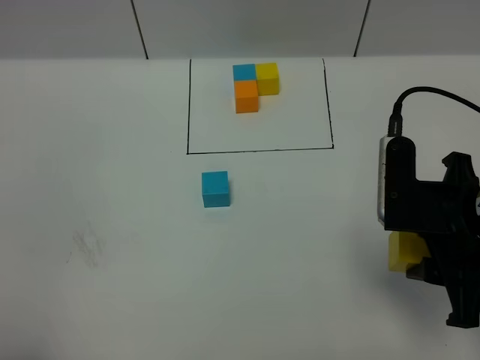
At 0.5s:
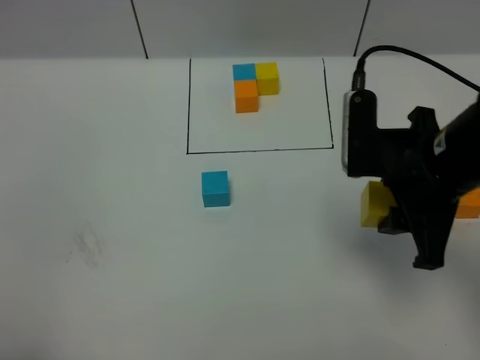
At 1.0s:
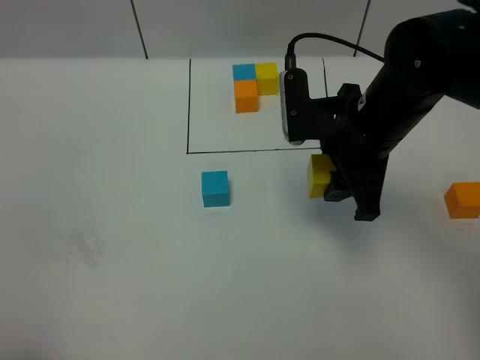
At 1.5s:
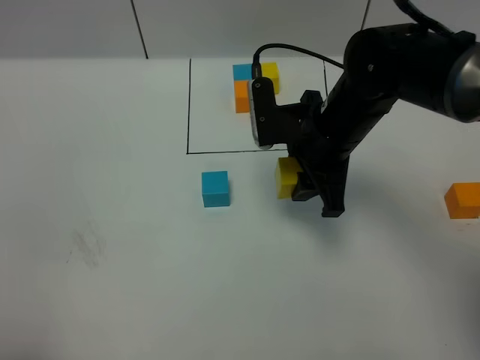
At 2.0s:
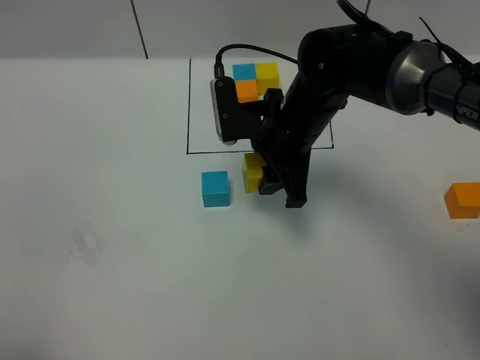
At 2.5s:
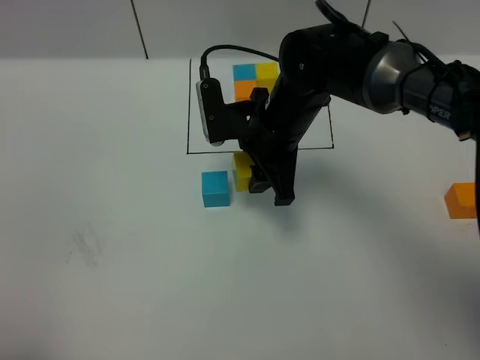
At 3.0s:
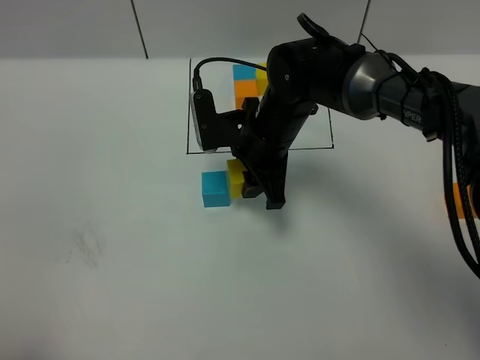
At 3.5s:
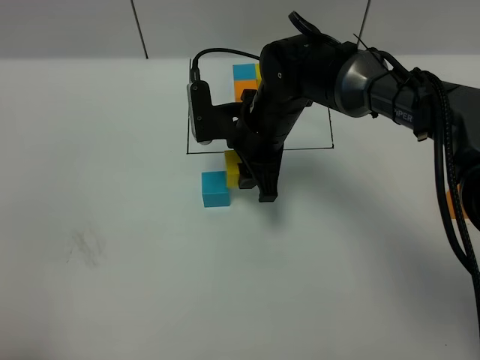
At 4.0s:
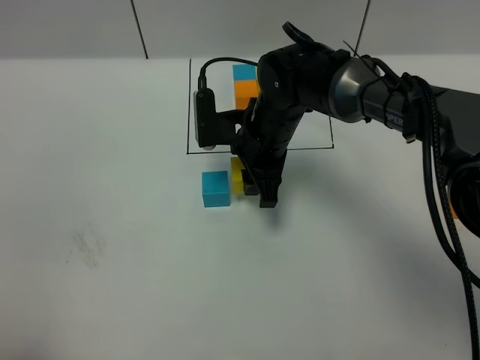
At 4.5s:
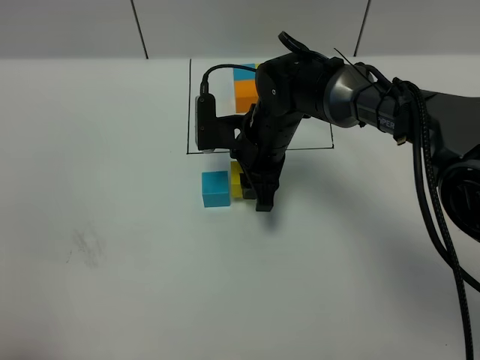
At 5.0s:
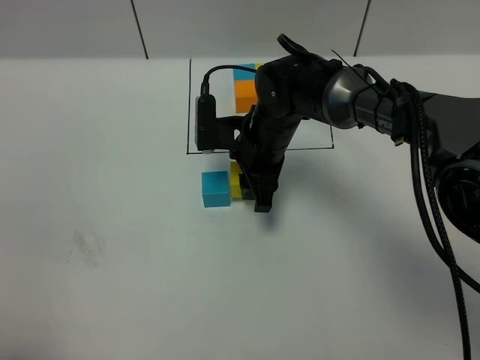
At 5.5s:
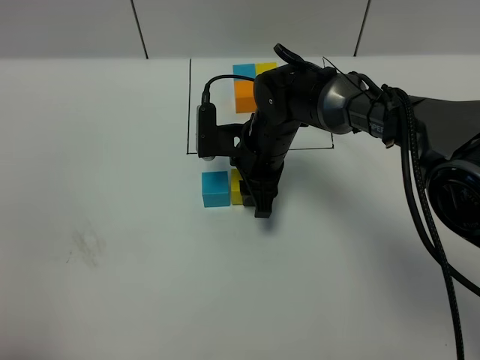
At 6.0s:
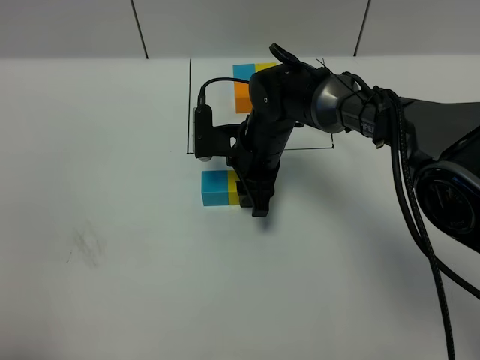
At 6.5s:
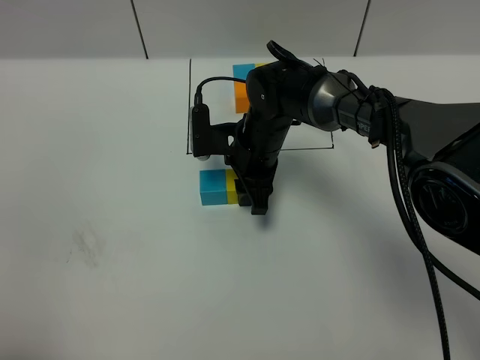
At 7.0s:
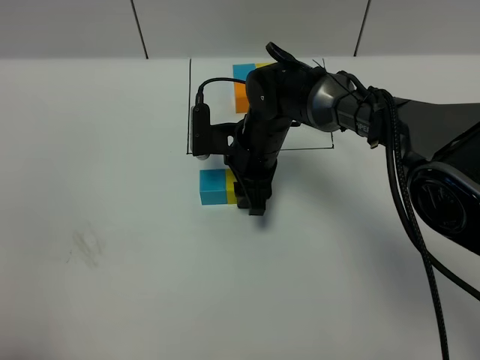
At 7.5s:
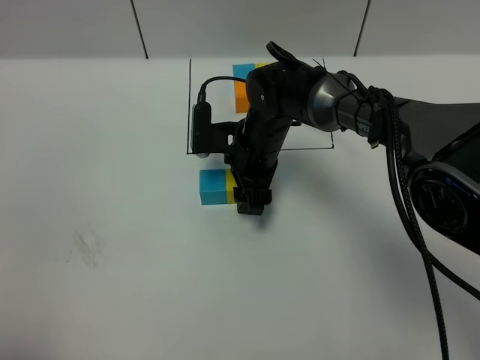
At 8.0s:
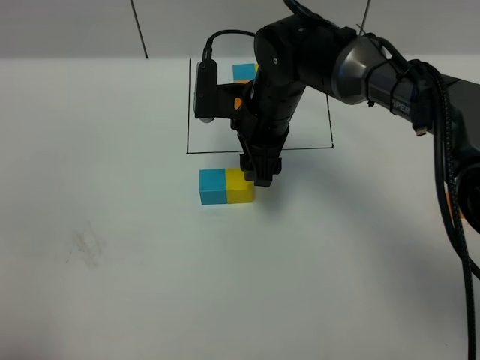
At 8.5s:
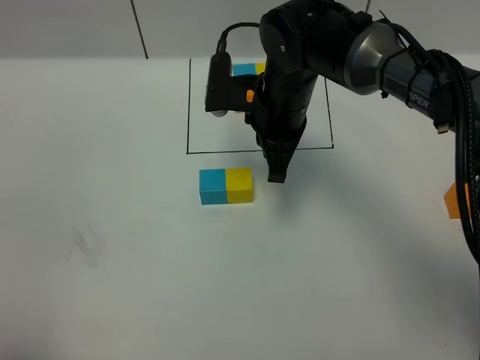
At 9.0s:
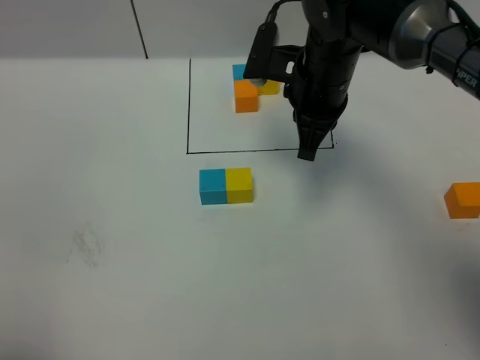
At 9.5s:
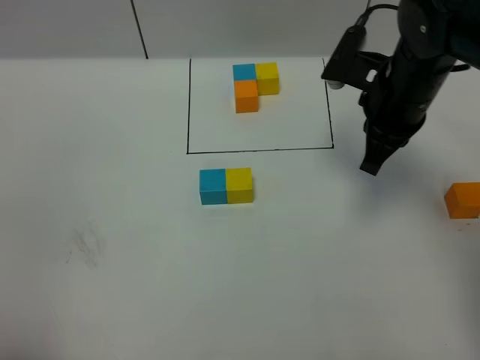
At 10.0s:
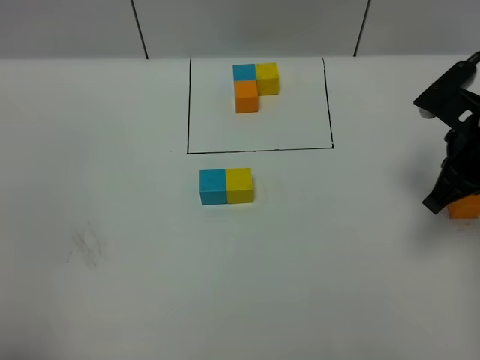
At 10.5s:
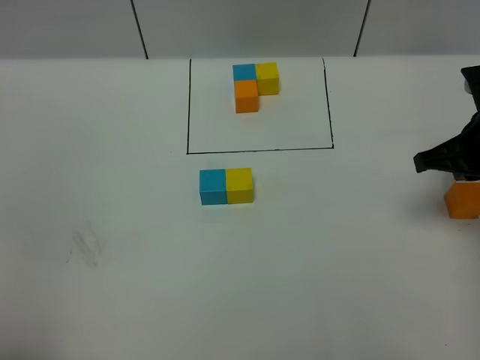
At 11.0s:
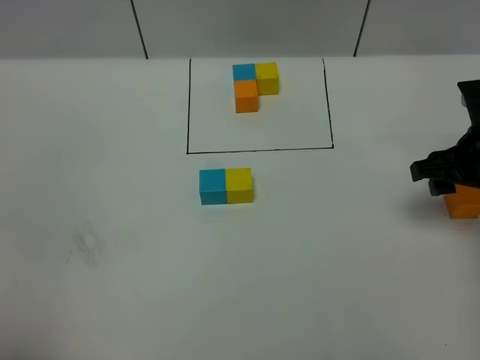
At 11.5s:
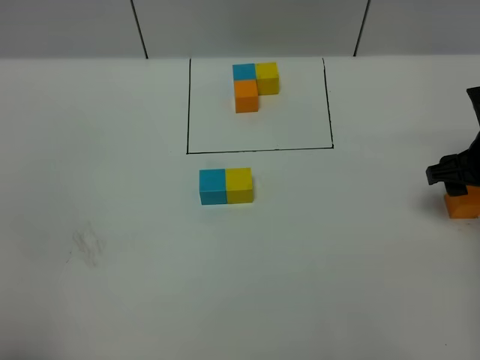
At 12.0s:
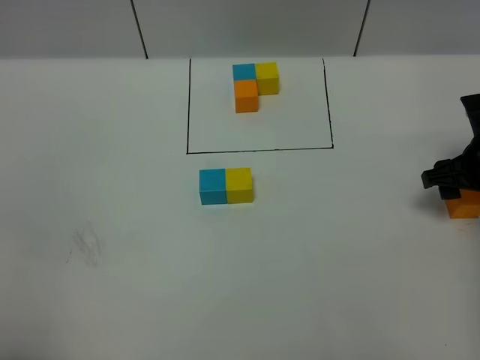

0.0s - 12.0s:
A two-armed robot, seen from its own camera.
Task of the whole recording: According to the building block template in front, assemble the scattered blocks together.
Step, 0.0s - 8.0s: Put the yellow cube on the right of the blue cube.
0.0s - 2.0s: The right gripper is displaced forward and to the left by about 20 cm.
2.0s - 4.0s: The right gripper moves some 5 cm.
4.0s - 6.0s: The grippers make only small movements.
6.0s - 8.0s: The right gripper shifts about 5 cm upward.
8.0s - 10.0s: The right gripper shifts some 25 cm to the right and backward, and closes.
10.0s - 12.0s: The right gripper travels downward by some 10 cm, and opens its fingers.

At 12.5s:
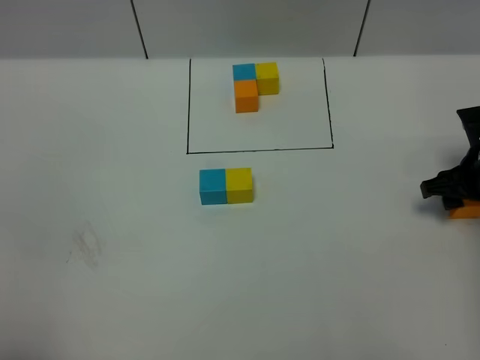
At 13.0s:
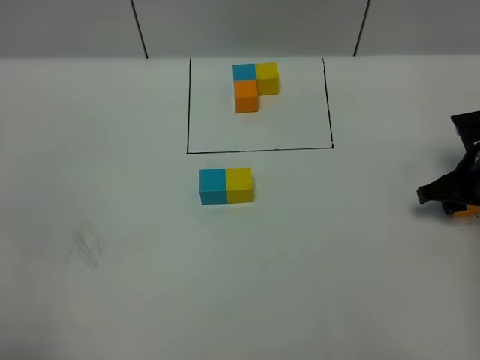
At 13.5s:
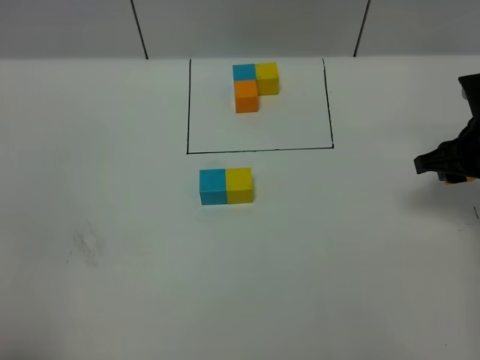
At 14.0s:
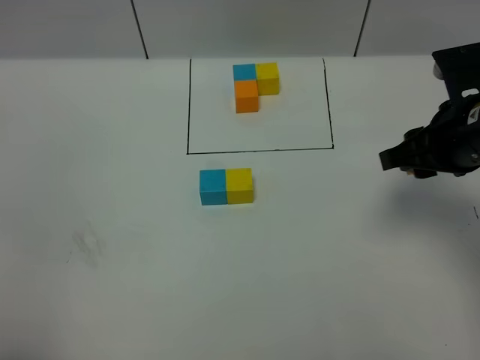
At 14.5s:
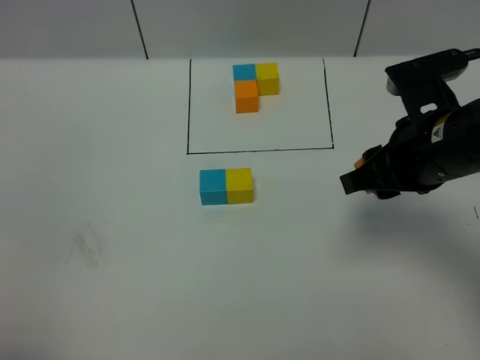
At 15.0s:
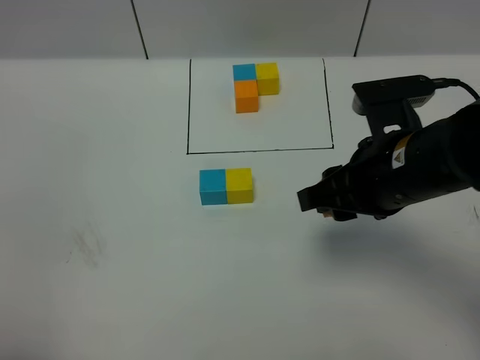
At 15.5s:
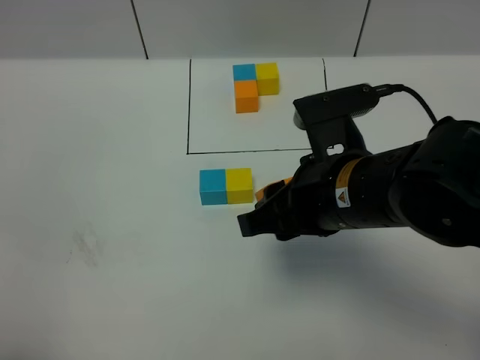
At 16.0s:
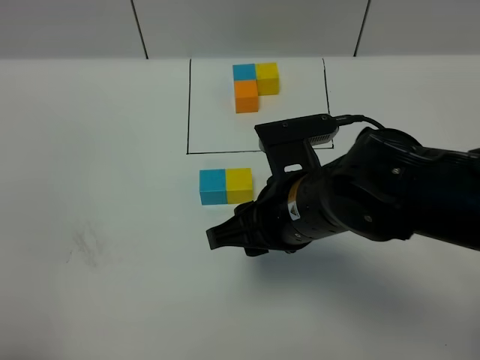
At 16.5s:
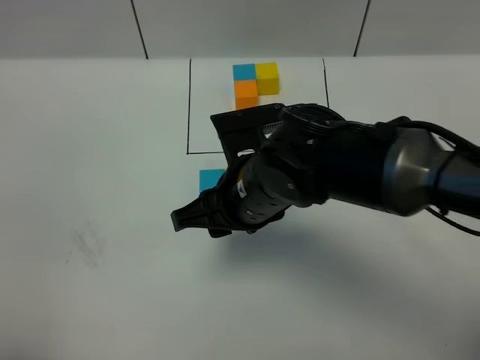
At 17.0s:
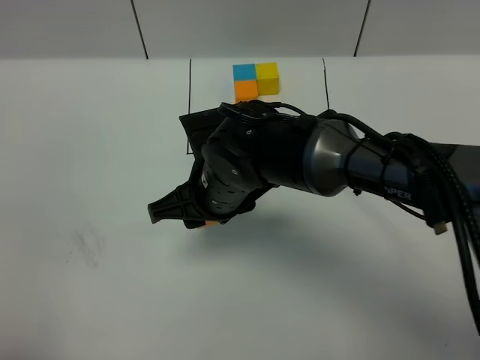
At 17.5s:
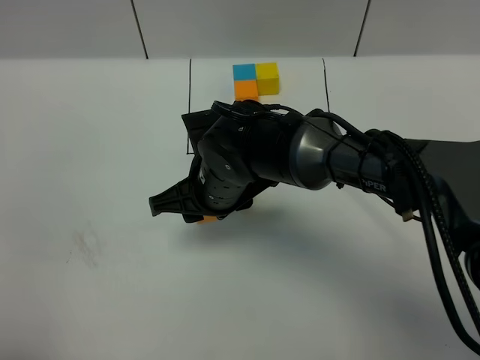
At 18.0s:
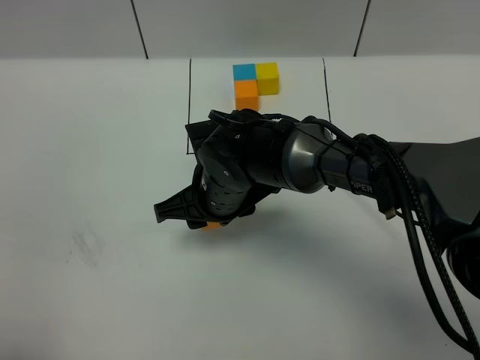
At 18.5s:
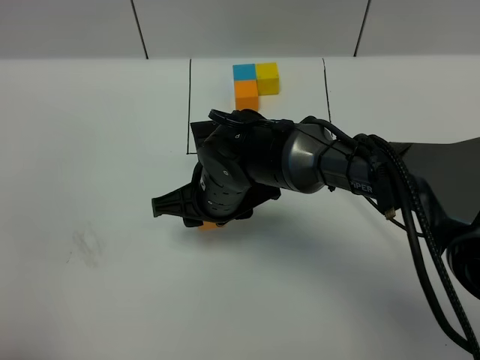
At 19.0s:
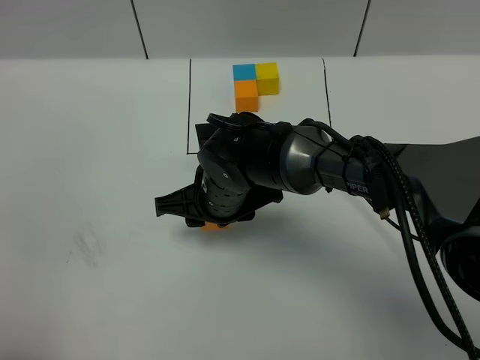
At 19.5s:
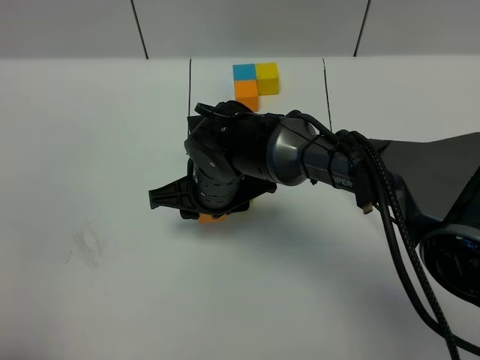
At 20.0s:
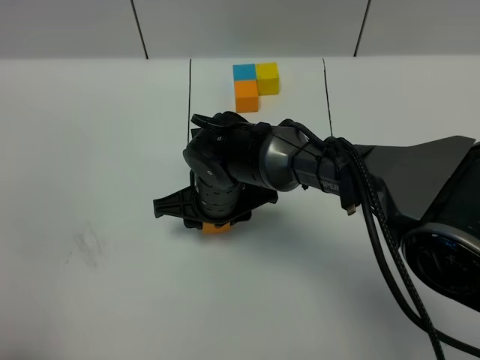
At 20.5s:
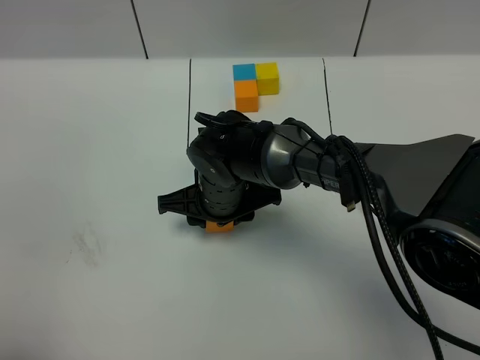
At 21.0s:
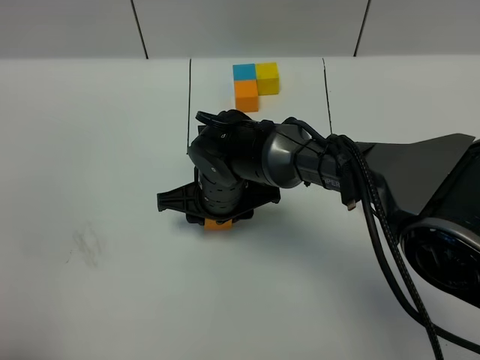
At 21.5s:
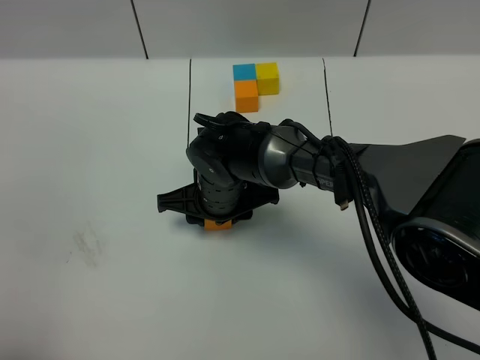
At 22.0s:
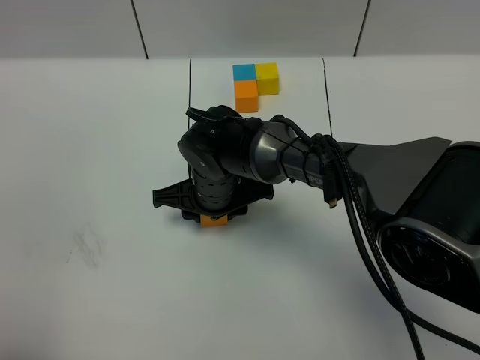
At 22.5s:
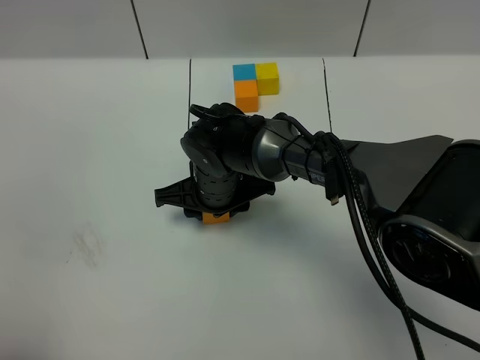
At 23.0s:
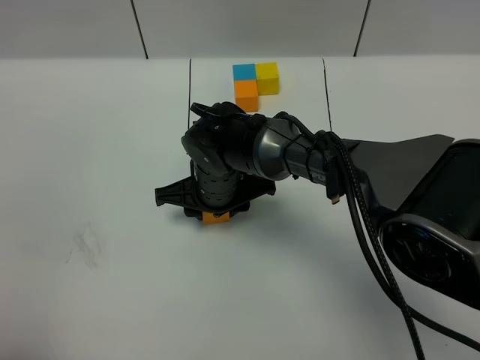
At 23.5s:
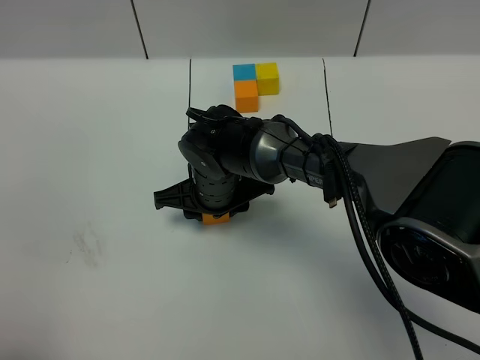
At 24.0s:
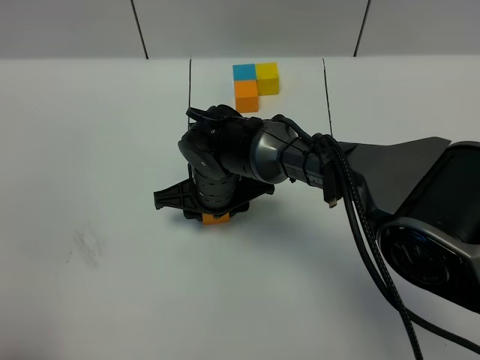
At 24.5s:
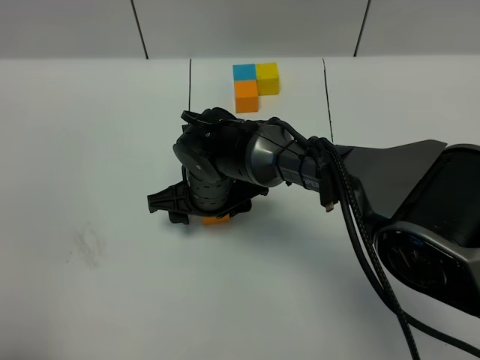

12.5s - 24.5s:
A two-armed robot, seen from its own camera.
Task of the whole recording: According to the building block template in front, assemble the scattered blocks together.
12.5s - 14.5s: The right gripper moves upward, to the left and backward, roughly 20 cm.
14.5s - 16.5s: The right gripper heads to the left, covering roughly 15 cm.
16.5s - 18.5s: The right gripper travels downward by approximately 5 cm.
18.5s - 22.5s: The grippers stay close to where they were, moving slightly.
22.5s - 24.5s: Neither gripper changes place.

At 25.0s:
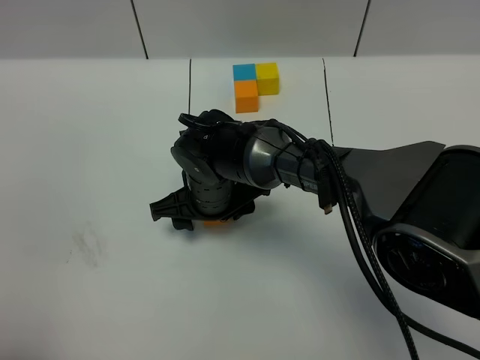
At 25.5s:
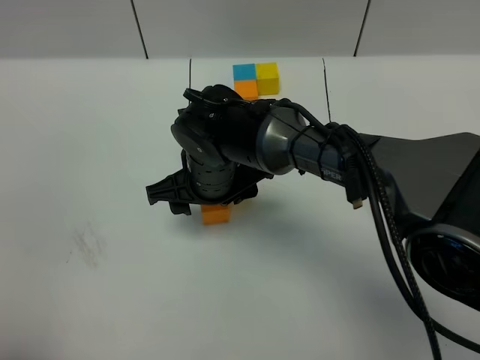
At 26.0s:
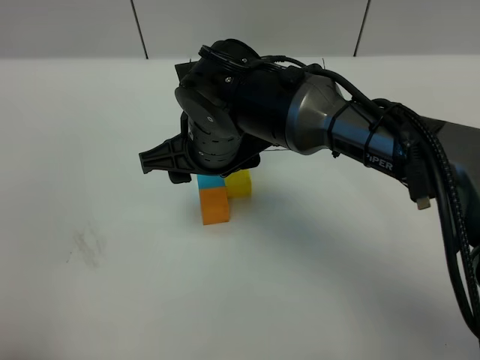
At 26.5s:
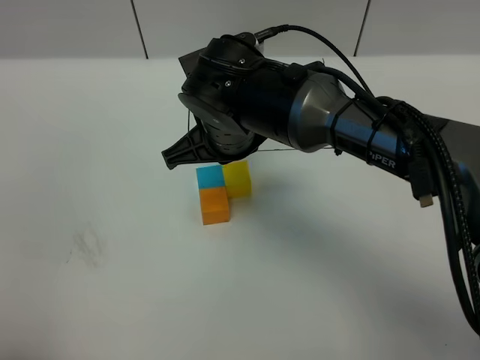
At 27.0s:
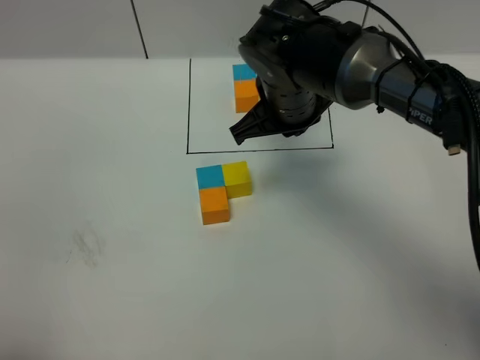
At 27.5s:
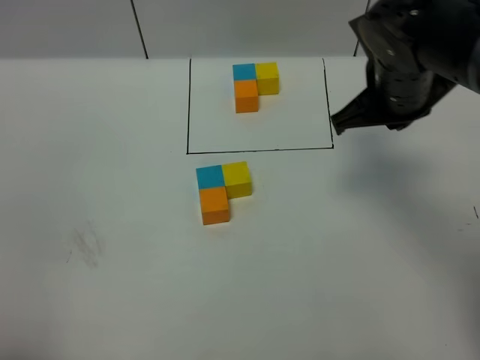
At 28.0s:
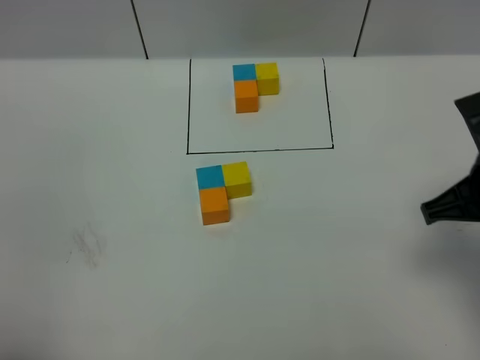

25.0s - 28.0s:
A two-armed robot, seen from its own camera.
Task of the whole recording: According to the building block template in front, assemble the scattered blocks together.
Step, 25.0s - 27.0s: Put the orange cube on the behind of the blue cube.
25.0s - 26.5s: The right gripper travels upward by some 10 cm, and closes up.
26.5s - 28.0s: The right gripper is displaced to the right and backward by about 30 cm.
